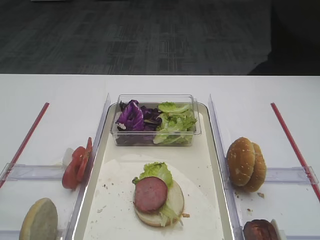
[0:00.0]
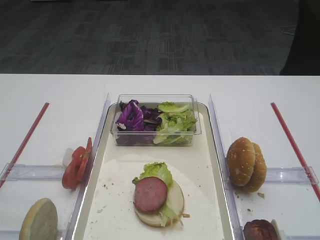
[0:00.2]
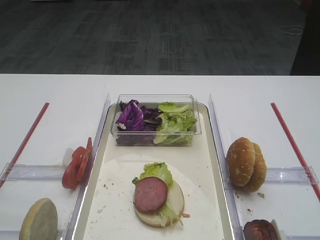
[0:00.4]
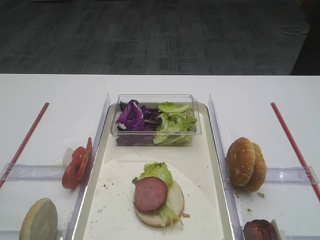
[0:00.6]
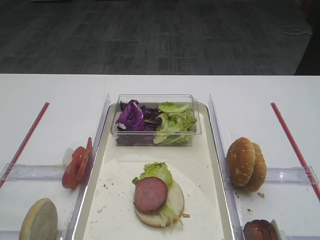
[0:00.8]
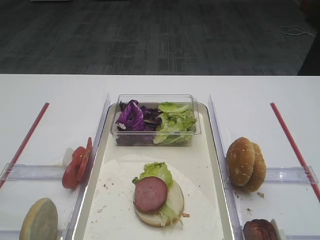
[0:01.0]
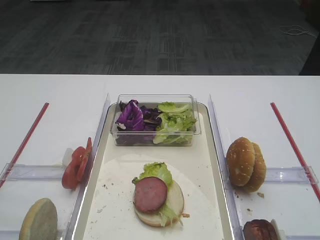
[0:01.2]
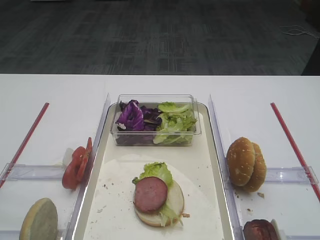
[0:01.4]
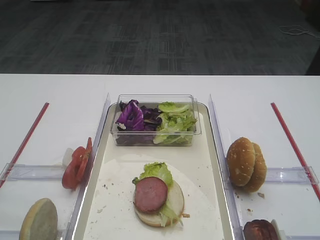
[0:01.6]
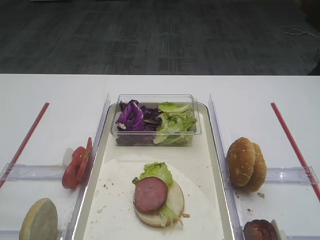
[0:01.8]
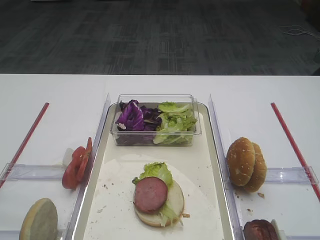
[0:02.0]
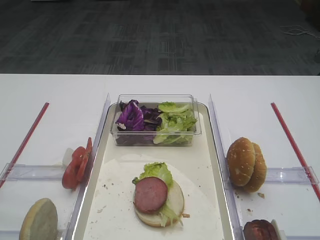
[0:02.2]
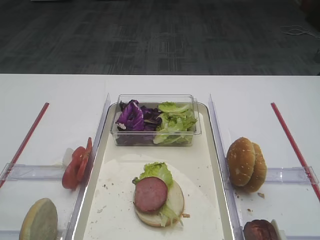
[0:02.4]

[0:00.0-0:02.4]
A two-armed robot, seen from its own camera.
0:00.0 to 0:01.2: The grippers move only a little.

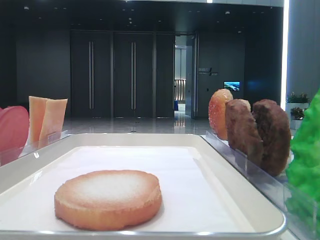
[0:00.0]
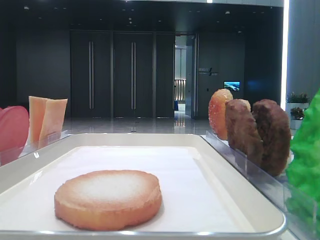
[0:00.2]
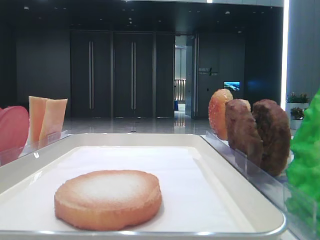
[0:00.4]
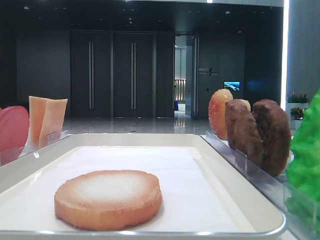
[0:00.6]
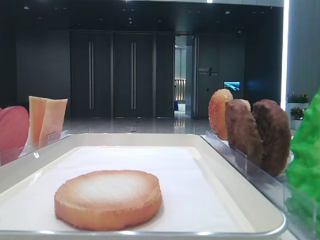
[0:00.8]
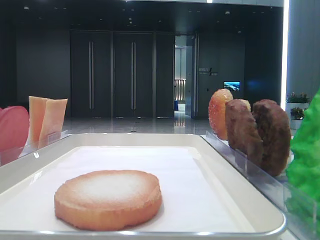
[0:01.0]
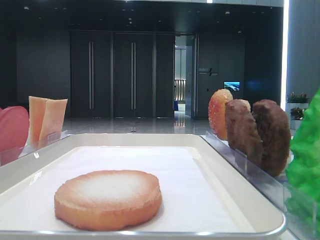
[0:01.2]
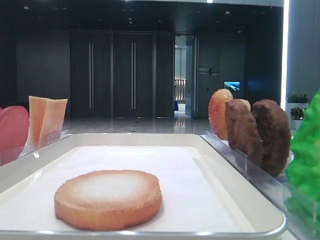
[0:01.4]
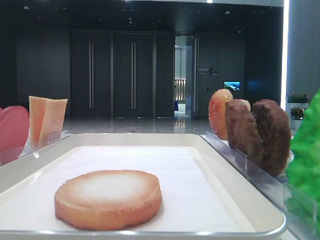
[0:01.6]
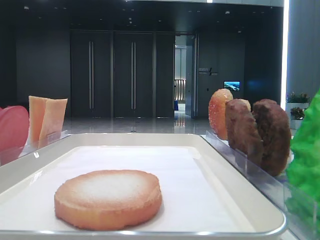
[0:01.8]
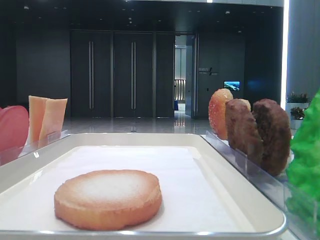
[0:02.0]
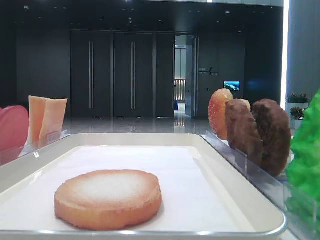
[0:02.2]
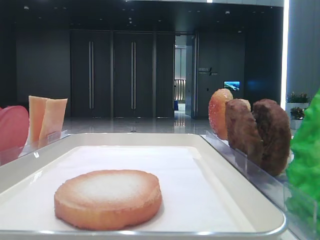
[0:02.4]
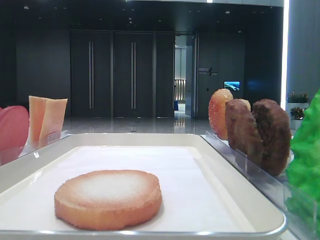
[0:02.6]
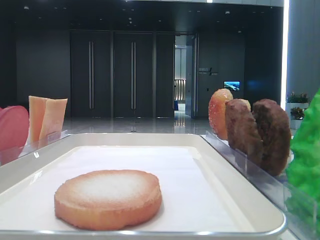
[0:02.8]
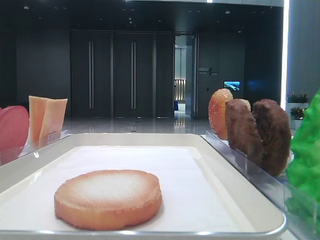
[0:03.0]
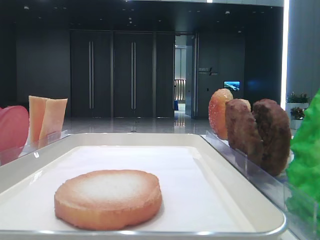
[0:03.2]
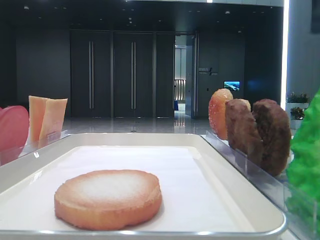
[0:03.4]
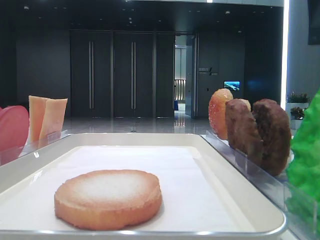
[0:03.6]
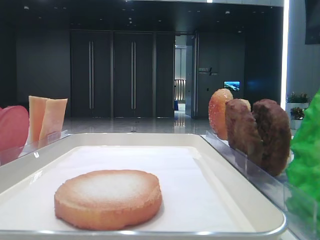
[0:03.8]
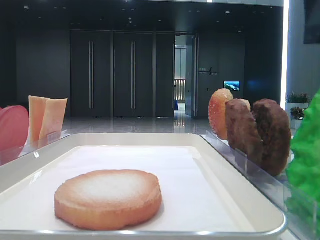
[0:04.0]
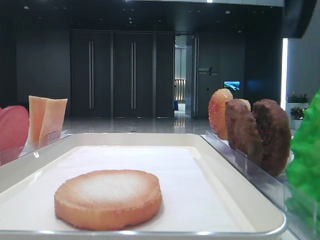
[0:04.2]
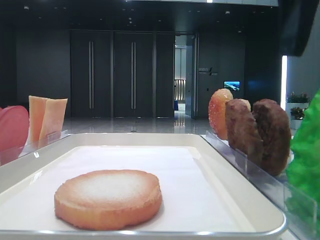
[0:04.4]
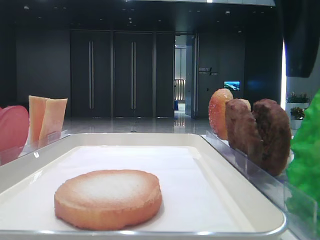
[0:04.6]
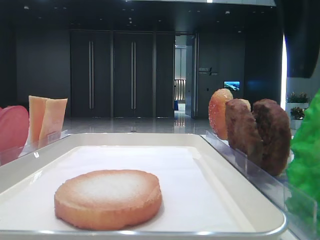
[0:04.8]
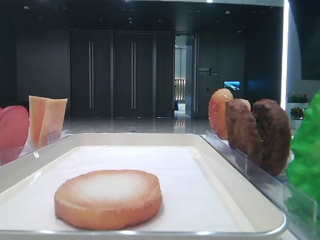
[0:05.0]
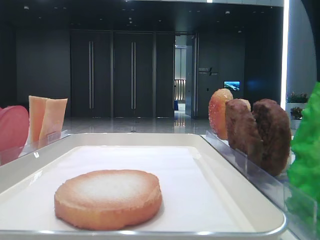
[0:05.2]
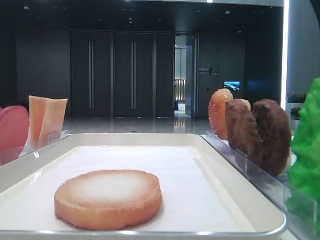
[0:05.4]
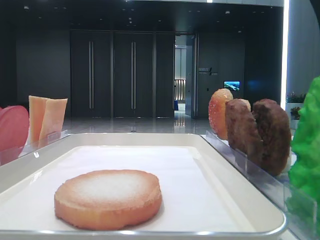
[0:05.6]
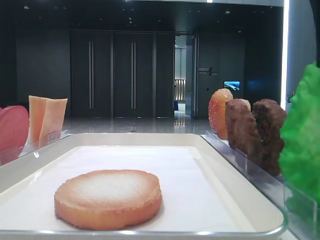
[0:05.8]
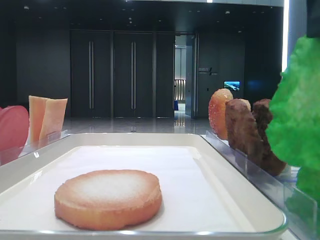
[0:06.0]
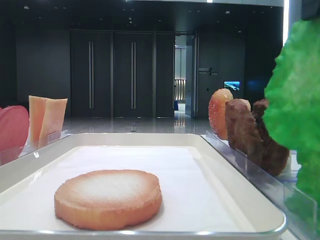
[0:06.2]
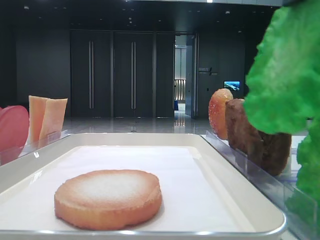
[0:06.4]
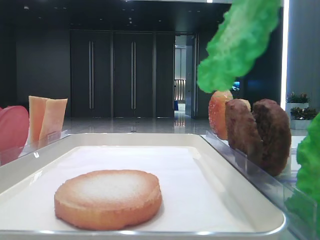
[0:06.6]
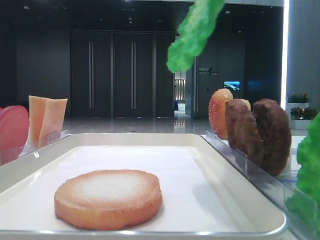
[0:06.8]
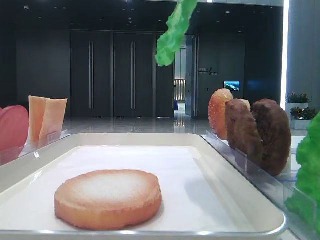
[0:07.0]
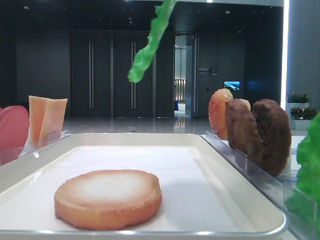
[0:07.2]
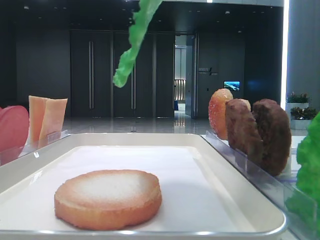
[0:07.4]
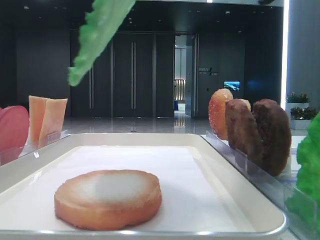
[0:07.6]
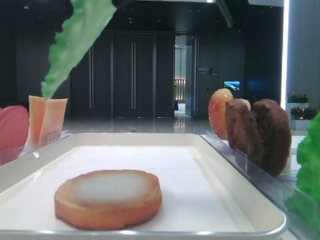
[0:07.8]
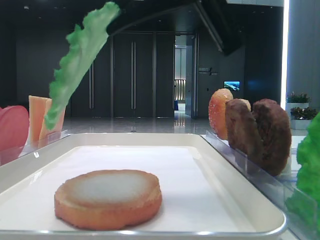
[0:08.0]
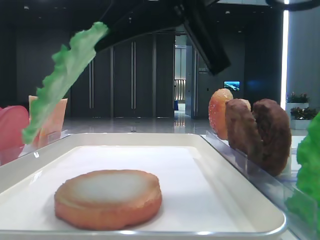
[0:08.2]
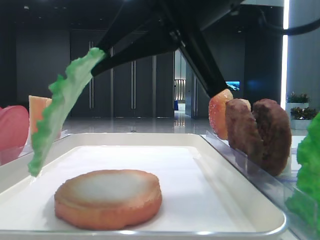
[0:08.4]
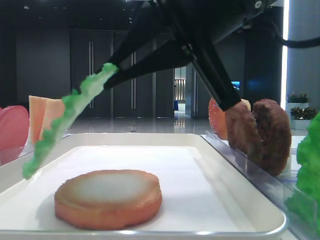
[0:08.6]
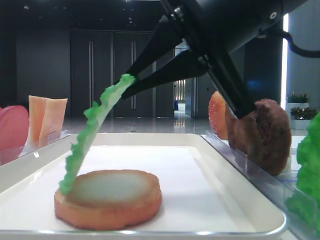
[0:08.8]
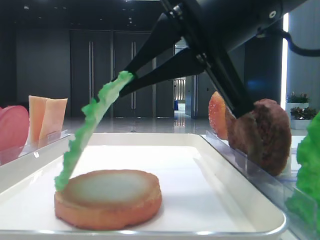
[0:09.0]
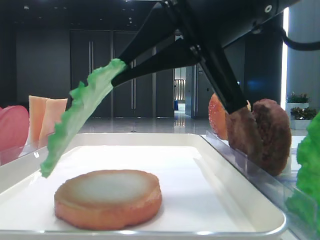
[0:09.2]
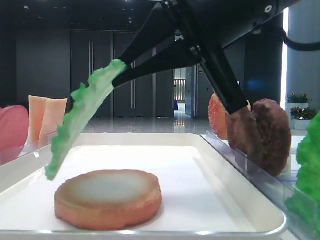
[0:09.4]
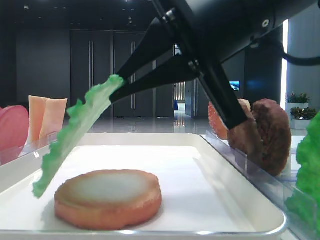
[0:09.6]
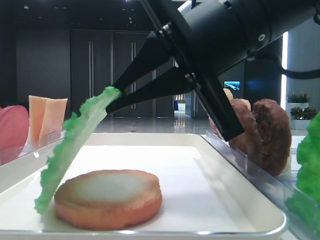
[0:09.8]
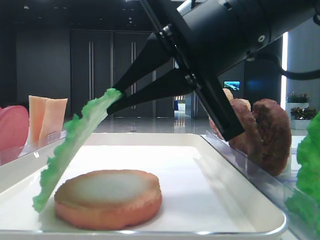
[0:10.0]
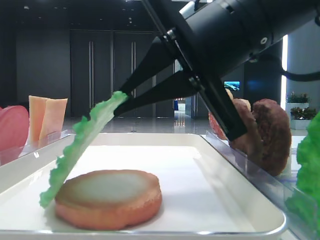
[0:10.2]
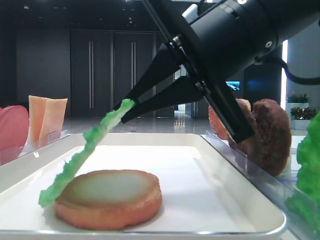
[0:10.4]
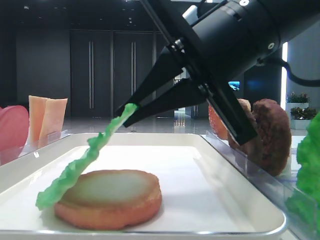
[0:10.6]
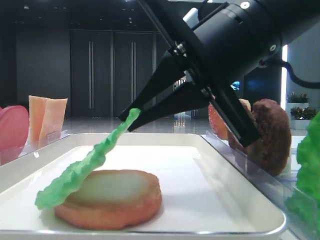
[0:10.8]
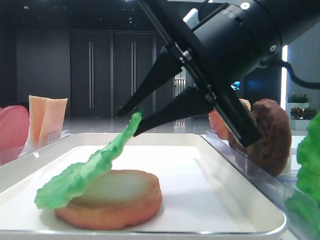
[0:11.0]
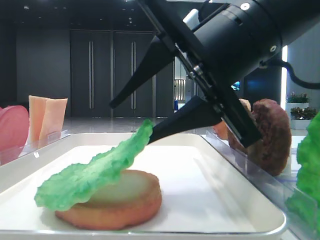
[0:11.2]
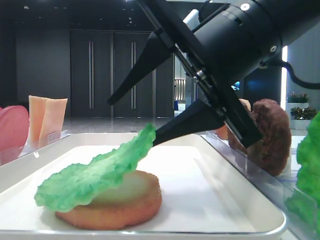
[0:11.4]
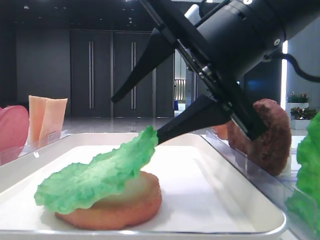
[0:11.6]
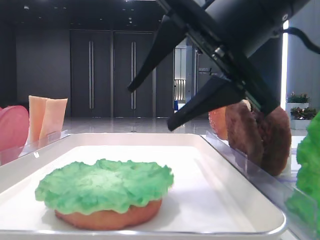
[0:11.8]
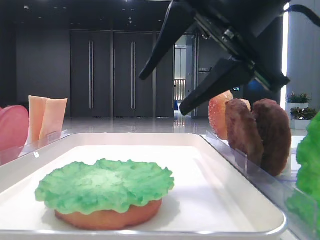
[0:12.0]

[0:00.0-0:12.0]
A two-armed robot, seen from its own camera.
Step, 0:00.0 to 0:05.6: Grab the lettuce leaf with the right hand.
Step, 0:05.8 to 0:11.8: Place the lettuce leaf on the bottom bread with the right hand.
0:03.0 to 0:04.4: The right gripper shifts by approximately 5 cm.
0:04.4 to 0:06.0: The right gripper closes its fingers.
0:06.0 to 0:07.6: The right gripper goes some 5 cm to the left.
0:07.6 to 0:09.0: The right gripper moves downward, about 10 cm.
0:09.0 to 0:10.4: There are only small adjustments of the grippers.
0:10.4 to 0:12.0: The right gripper opens.

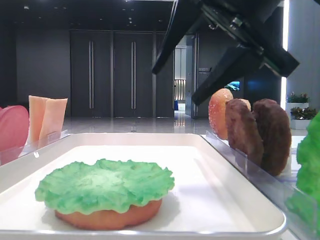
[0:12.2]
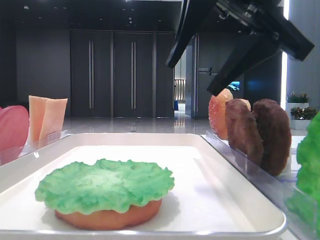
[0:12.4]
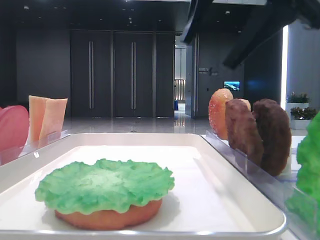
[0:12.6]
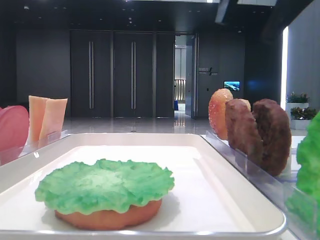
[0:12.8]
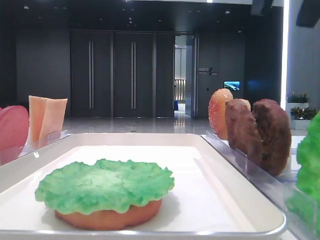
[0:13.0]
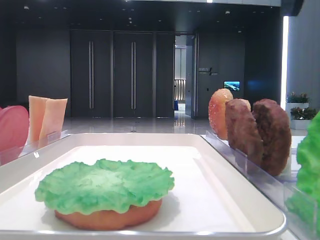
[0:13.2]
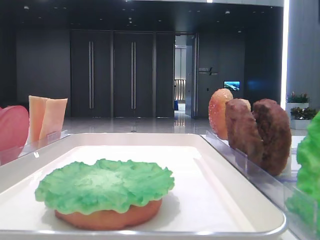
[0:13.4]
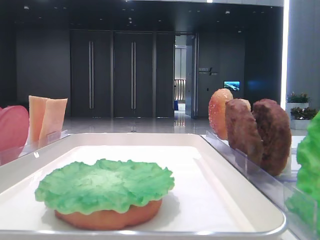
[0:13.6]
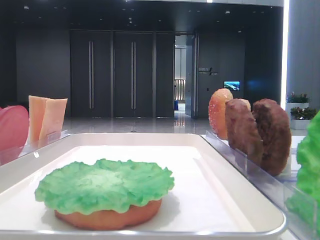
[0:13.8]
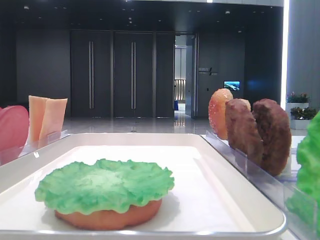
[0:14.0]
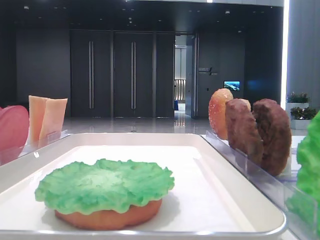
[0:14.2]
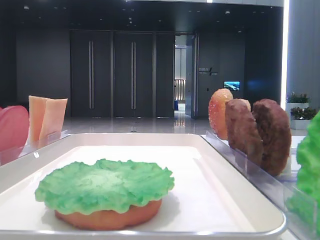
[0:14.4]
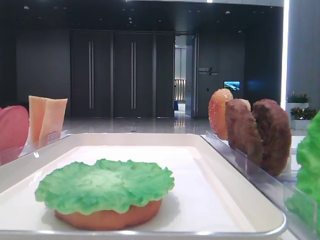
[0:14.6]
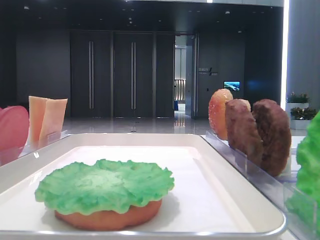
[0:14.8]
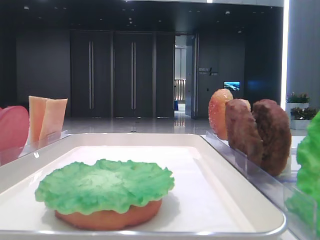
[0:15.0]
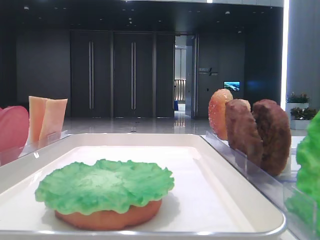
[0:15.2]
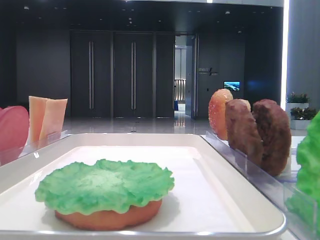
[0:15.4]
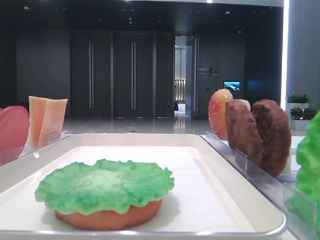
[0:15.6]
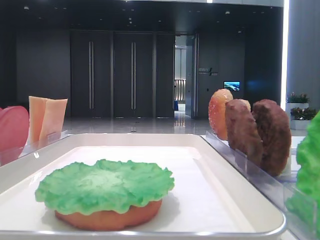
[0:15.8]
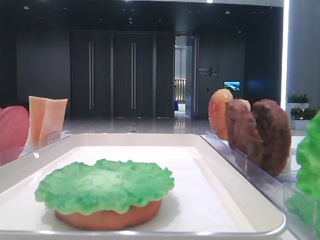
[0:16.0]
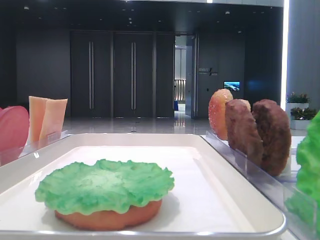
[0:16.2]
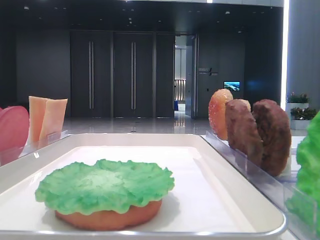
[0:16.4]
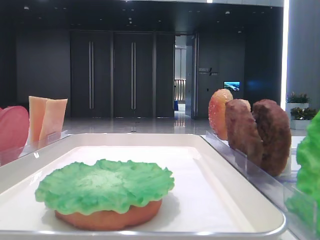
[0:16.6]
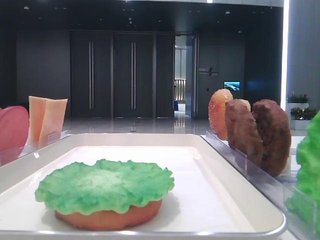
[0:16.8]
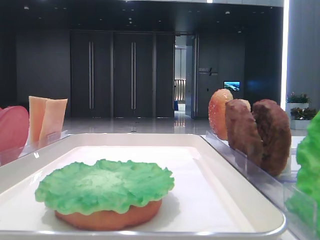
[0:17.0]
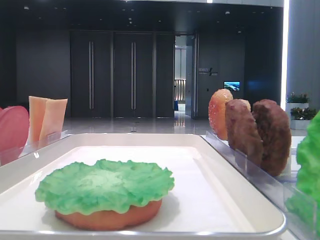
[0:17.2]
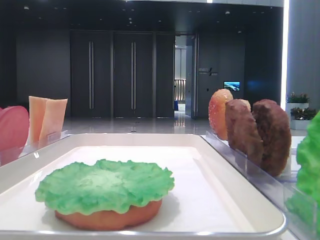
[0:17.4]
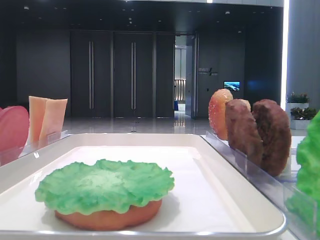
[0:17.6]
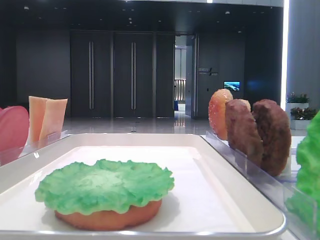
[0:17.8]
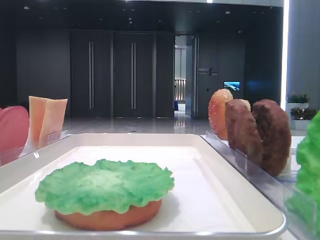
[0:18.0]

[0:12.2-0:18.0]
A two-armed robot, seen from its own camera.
0:12.2 to 0:13.6: The right gripper goes about 15 cm to the right and upward.
0:16.6 to 0:18.0: Both grippers stay about where they are.

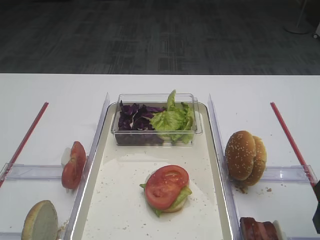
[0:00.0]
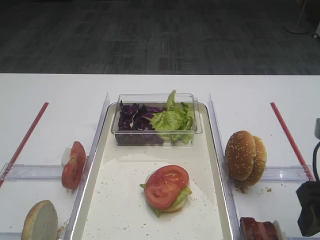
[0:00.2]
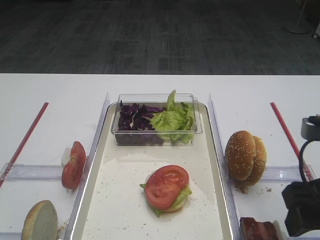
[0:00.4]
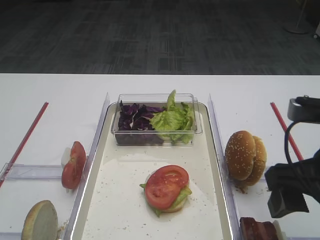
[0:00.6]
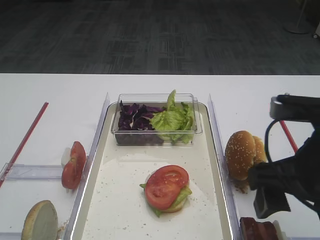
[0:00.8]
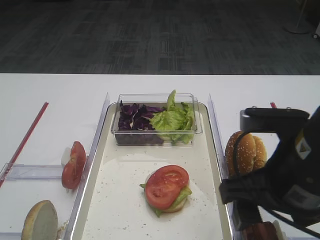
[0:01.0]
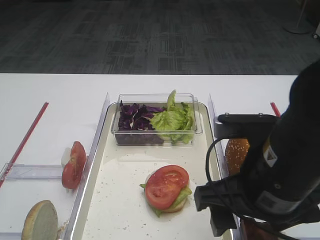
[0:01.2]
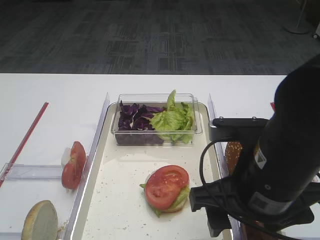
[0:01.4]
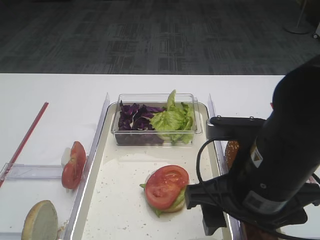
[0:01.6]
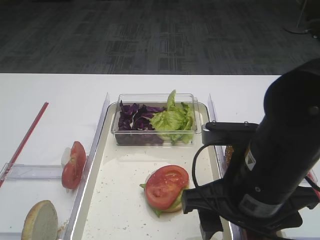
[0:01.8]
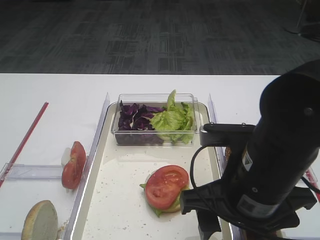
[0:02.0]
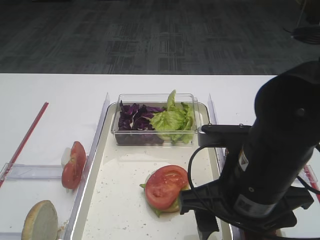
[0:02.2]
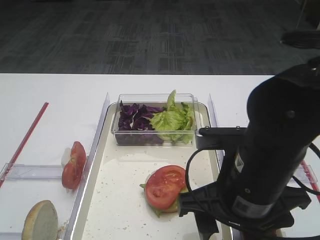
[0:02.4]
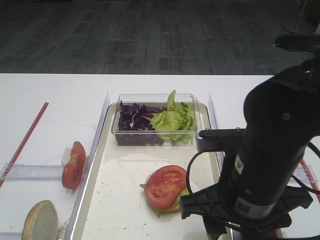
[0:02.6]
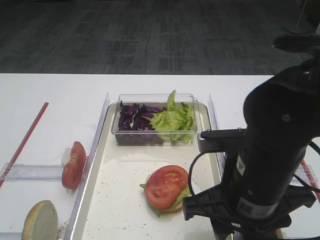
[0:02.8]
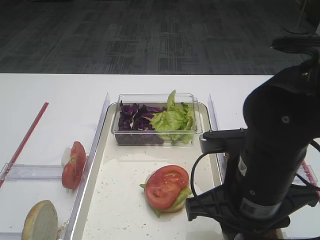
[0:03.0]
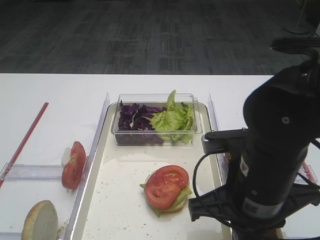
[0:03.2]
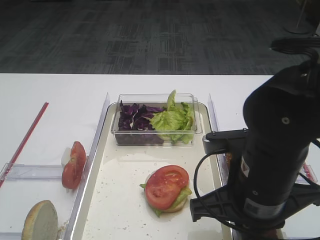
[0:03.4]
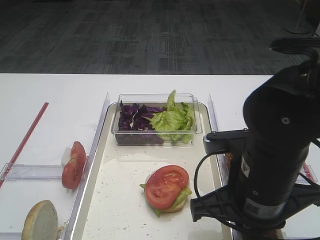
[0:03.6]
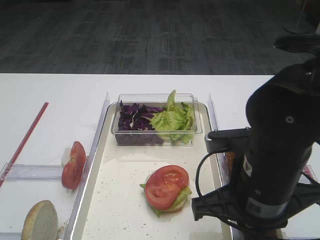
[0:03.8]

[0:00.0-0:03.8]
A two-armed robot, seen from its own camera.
0:00.0 to 0:01.2: The right gripper moves to the left, about 15 cm.
0:01.2 to 0:02.6: The grippers make only small movements.
0:02.6 to 0:03.8: The right gripper closes.
